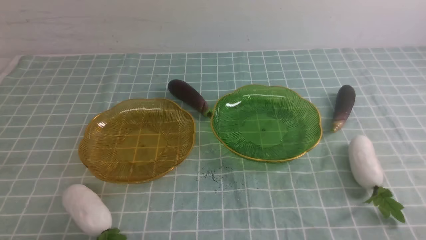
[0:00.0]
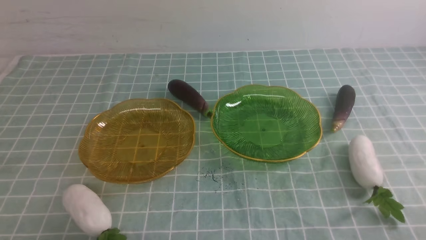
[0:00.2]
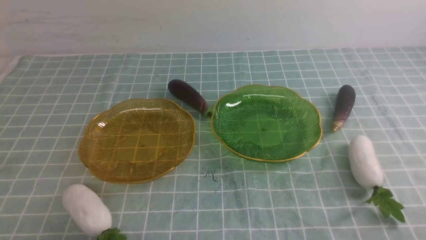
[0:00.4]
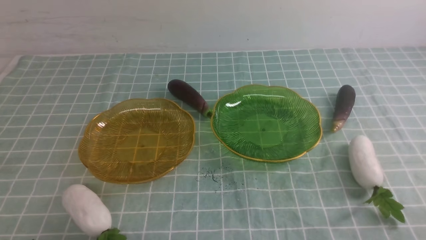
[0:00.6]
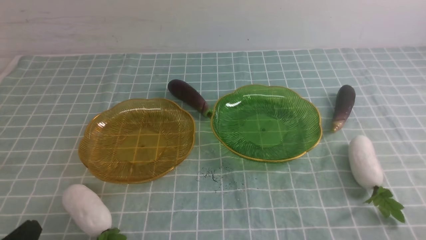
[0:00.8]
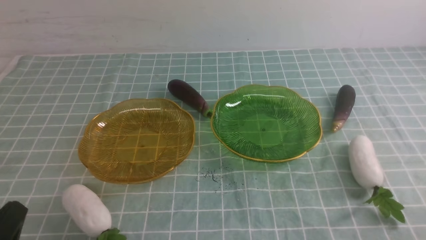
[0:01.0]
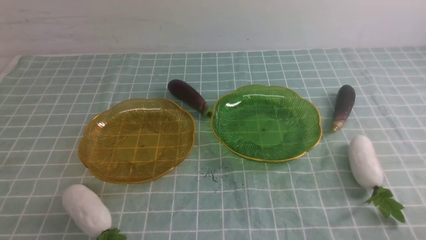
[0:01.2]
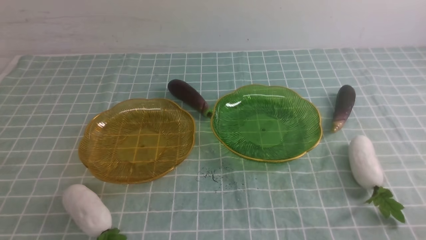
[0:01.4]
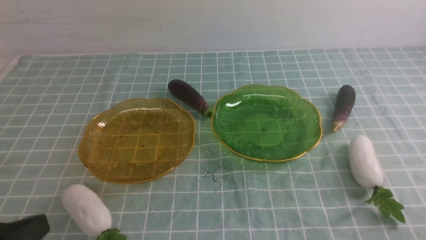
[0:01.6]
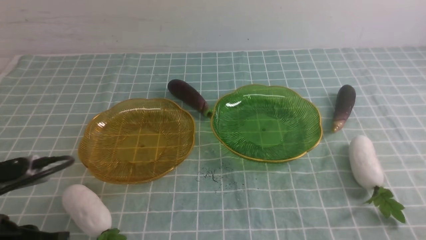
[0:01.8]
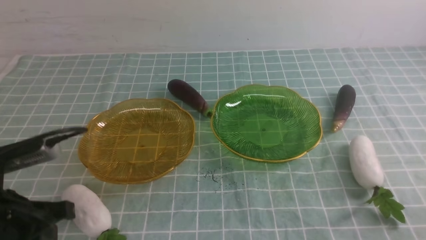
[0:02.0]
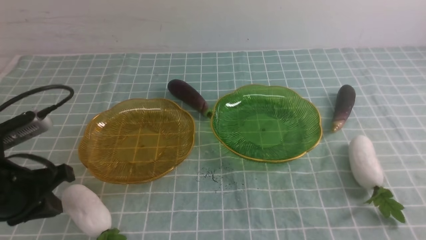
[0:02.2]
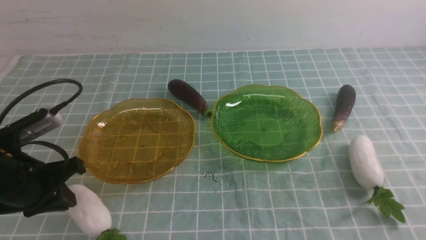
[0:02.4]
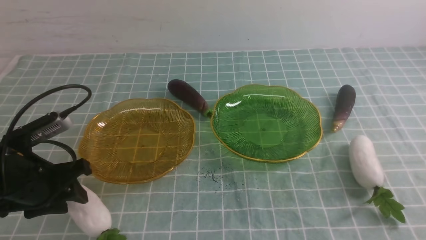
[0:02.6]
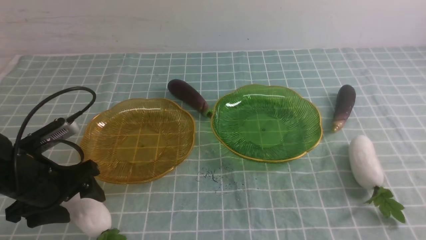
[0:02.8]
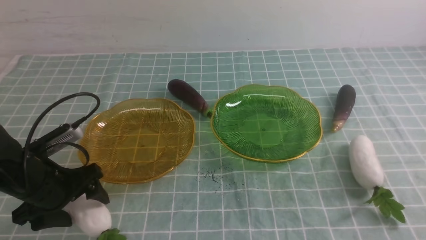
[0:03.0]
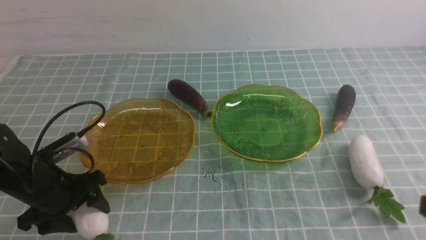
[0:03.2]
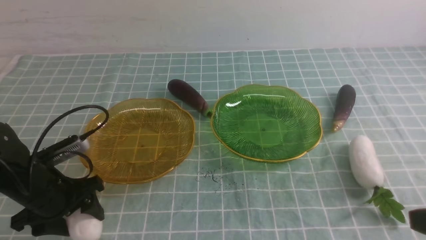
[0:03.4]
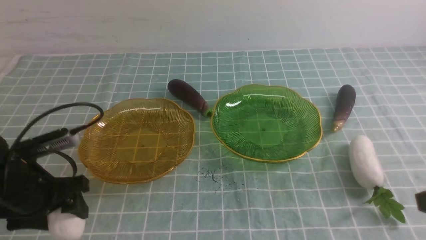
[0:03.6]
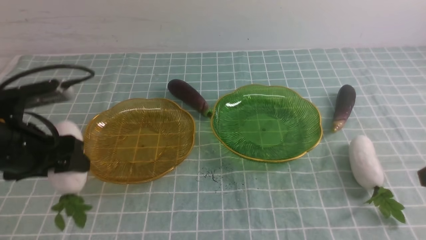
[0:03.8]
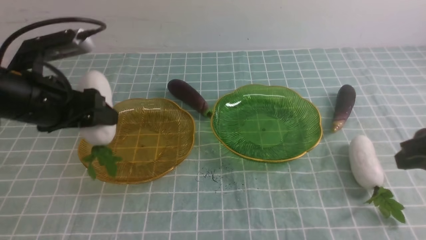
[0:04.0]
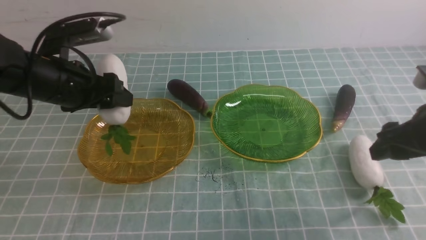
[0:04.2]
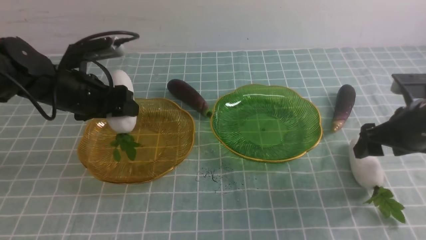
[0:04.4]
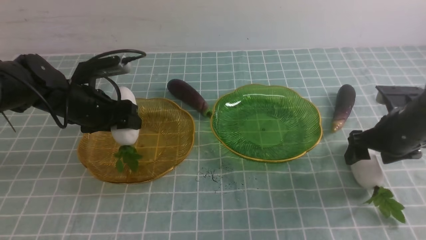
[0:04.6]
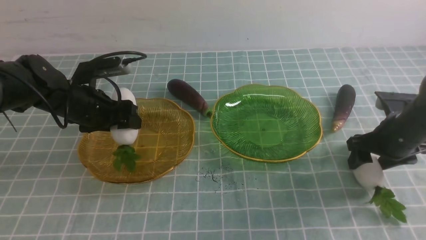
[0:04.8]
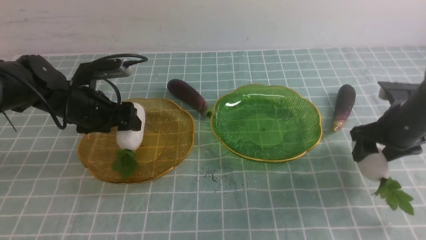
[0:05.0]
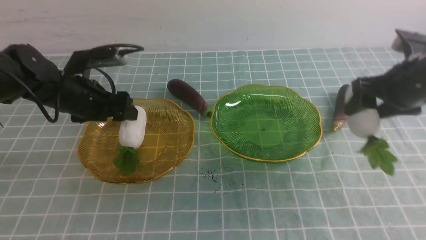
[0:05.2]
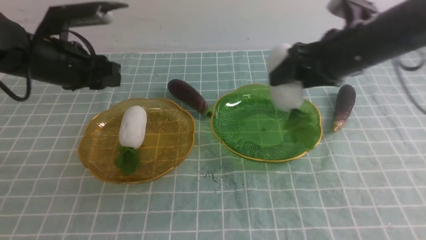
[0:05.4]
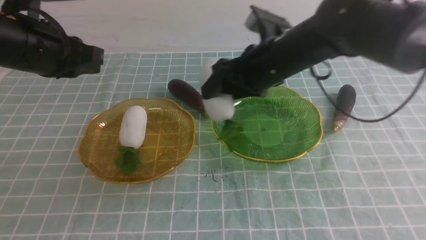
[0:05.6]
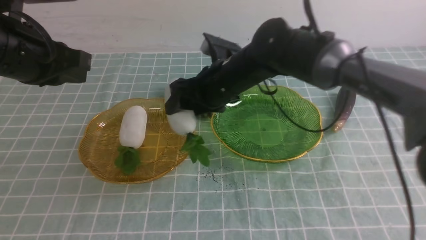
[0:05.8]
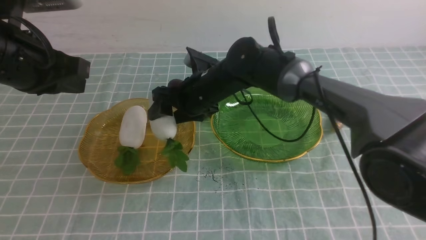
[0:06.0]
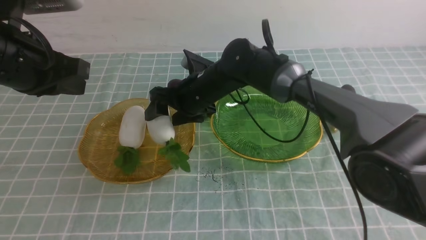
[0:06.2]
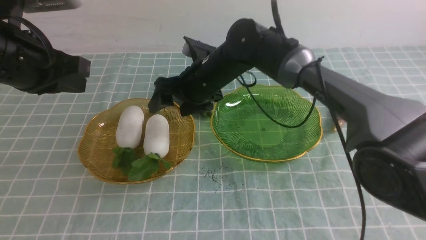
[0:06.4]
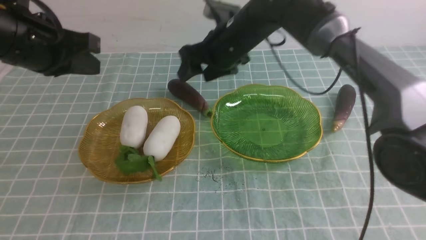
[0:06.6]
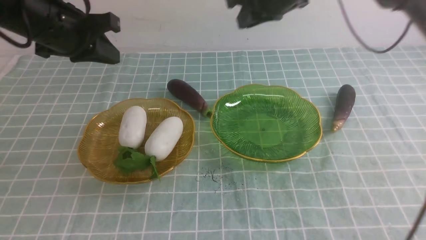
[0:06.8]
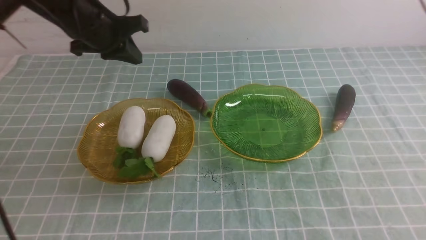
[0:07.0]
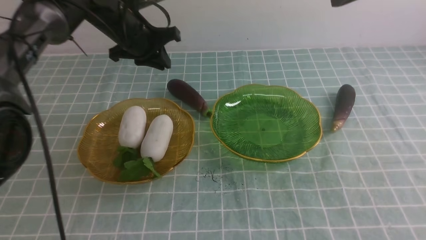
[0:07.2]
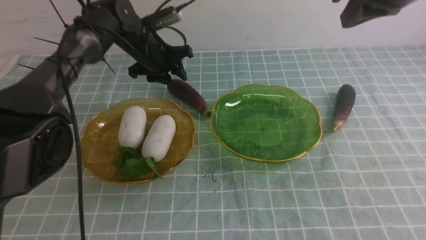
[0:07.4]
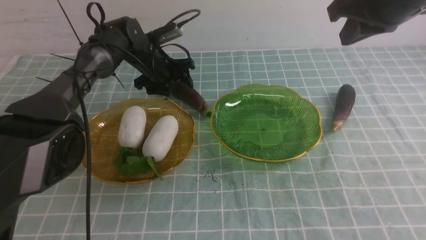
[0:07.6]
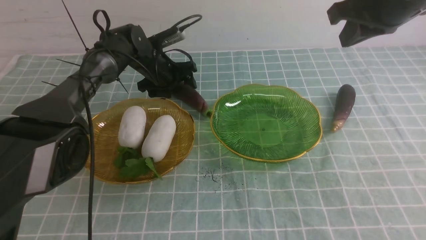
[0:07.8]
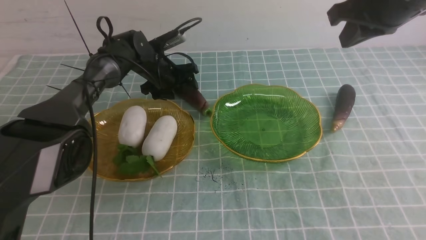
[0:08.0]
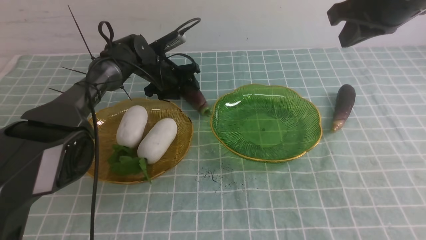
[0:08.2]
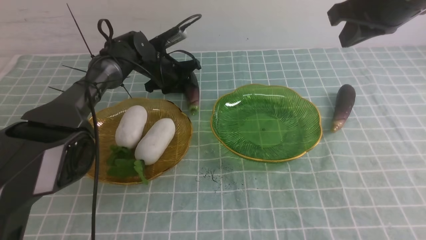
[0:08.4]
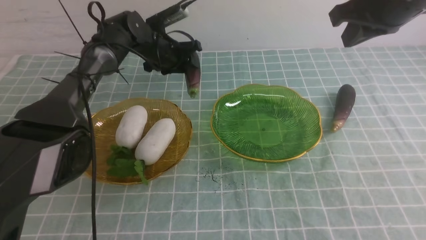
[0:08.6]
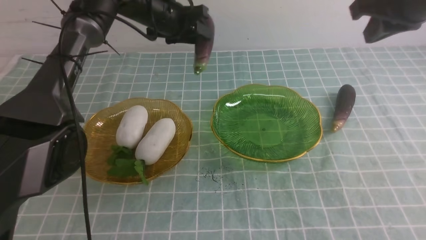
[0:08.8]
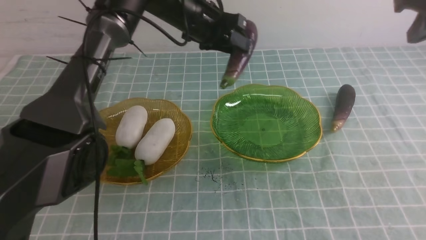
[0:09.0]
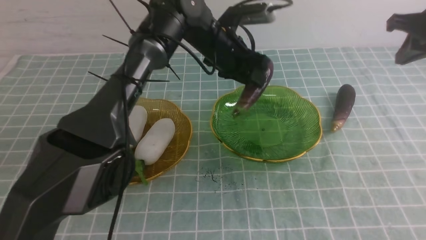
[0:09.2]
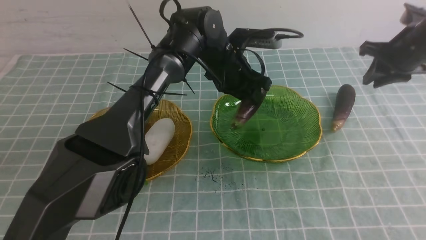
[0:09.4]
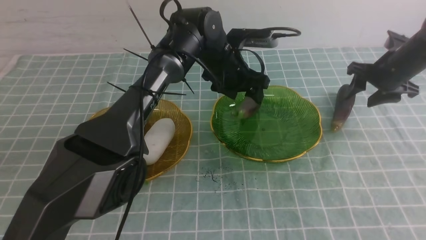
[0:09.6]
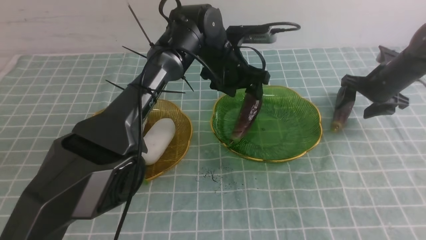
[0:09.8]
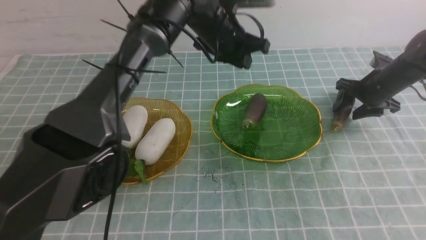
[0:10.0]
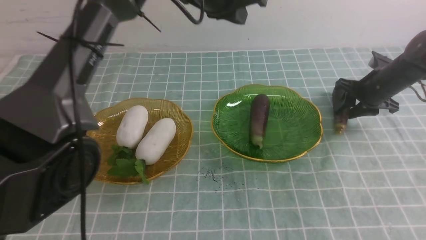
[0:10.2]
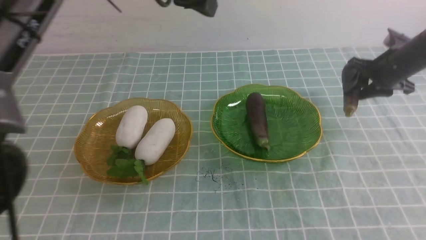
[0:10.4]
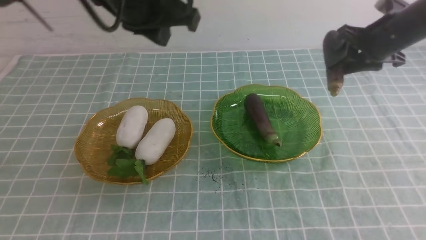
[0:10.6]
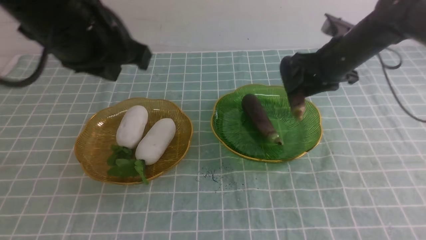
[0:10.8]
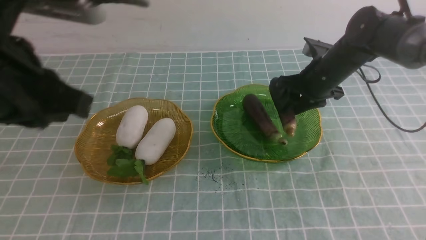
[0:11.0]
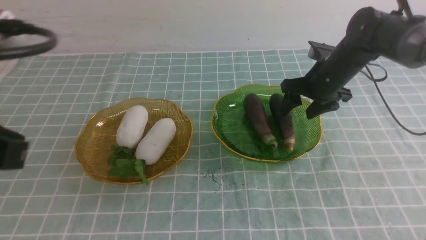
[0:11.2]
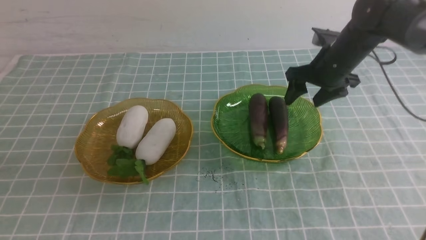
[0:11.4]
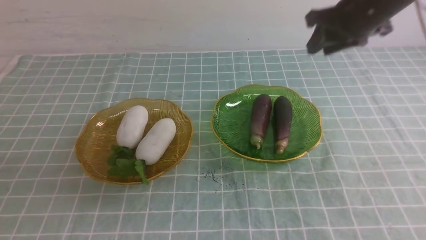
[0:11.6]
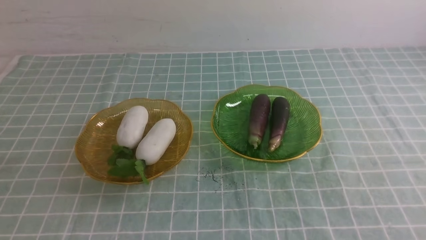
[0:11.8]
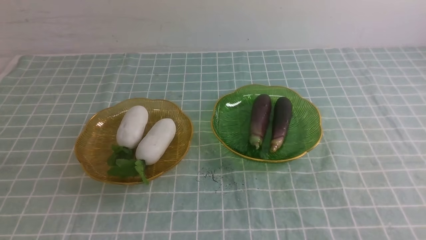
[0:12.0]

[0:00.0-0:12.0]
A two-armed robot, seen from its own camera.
Step, 0:00.0 to 0:04.4: use the left arm to grab a radish and put it into the left plate.
Step, 0:04.6 to 0:06.2: use the right arm to grab a radish and put it into the left plate.
Step, 0:06.4 to 0:09.6: use the left arm to grab an eggplant and put it into the right plate.
Step, 0:09.8 to 0:11.0: use the right arm to grab an eggplant and put it into the right plate.
0:00.0 to 0:01.6: The left gripper goes approximately 10 cm upward.
0:01.6 to 0:03.0: The left gripper travels forward and downward by roughly 20 cm, and opens.
0:03.0 to 0:04.4: The left gripper goes approximately 15 cm forward and upward, while the right gripper is displaced forward by about 25 cm, and opens up.
0:04.4 to 0:06.0: The left gripper shifts roughly 15 cm upward and backward, and closes its fingers; the right gripper goes some 30 cm to the left.
0:06.0 to 0:07.6: The left gripper moves forward and downward, approximately 30 cm, and opens up. Meanwhile the right gripper shifts about 30 cm to the right and upward, and closes its fingers.
0:07.6 to 0:09.0: The right gripper shifts about 10 cm to the right; the left gripper heads to the right and upward, covering some 15 cm, and closes up.
0:09.0 to 0:10.4: The left gripper heads upward and backward, covering approximately 20 cm, and closes its fingers; the right gripper is displaced downward and forward by roughly 15 cm, and opens up.
0:10.4 to 0:12.0: The right gripper heads backward and upward, covering about 40 cm, and closes, while the left gripper is displaced backward and to the left by some 35 cm.
